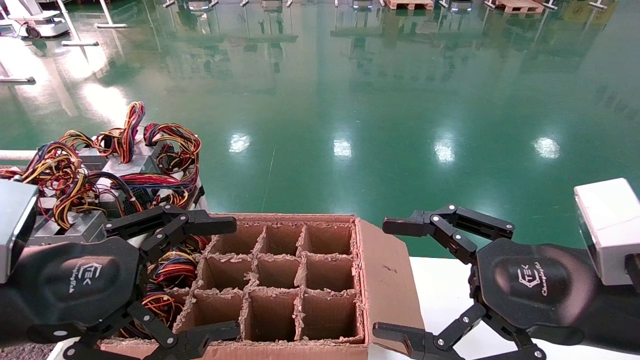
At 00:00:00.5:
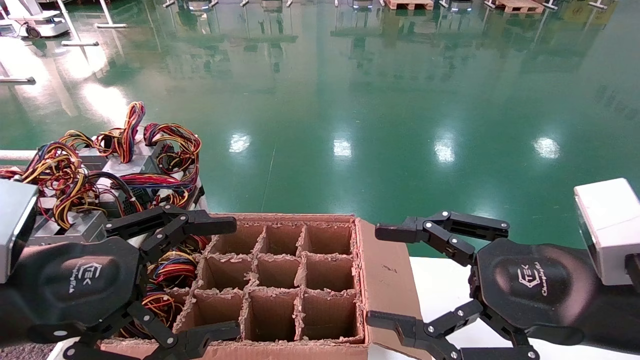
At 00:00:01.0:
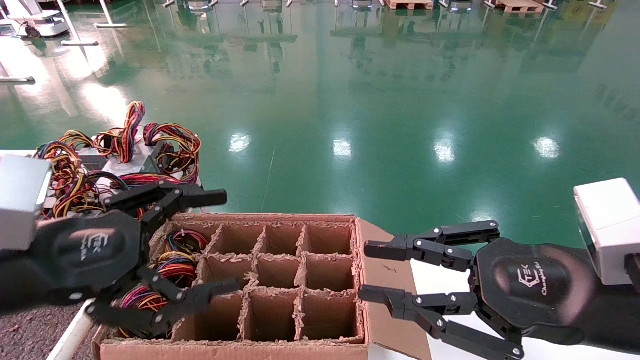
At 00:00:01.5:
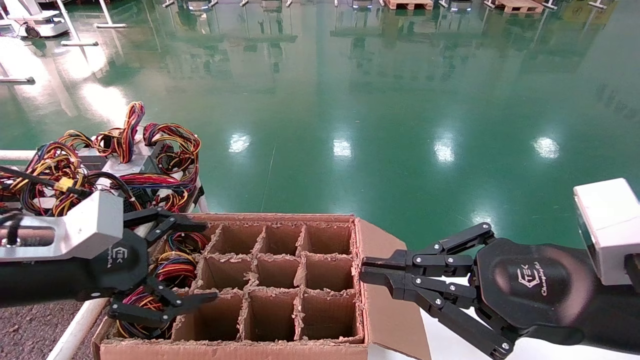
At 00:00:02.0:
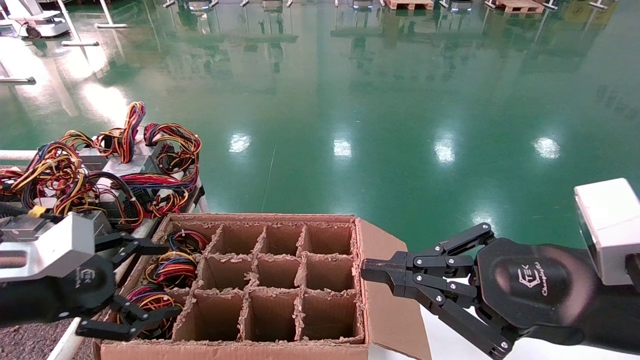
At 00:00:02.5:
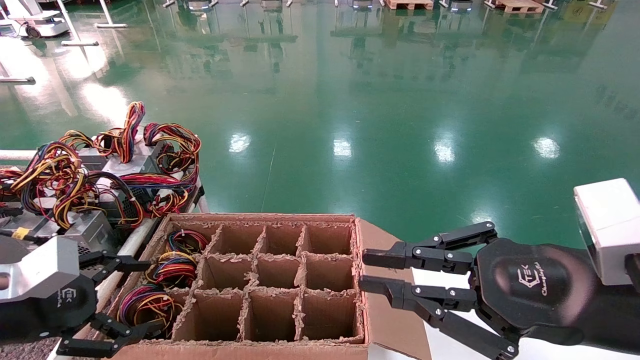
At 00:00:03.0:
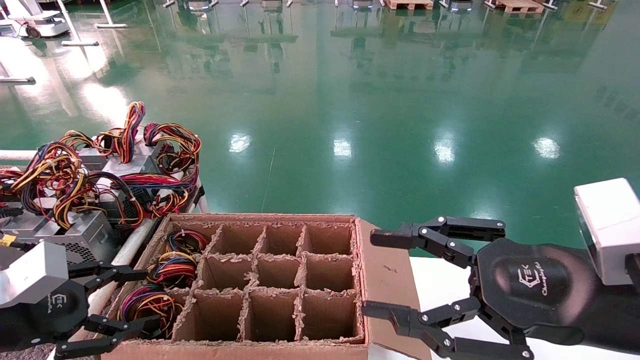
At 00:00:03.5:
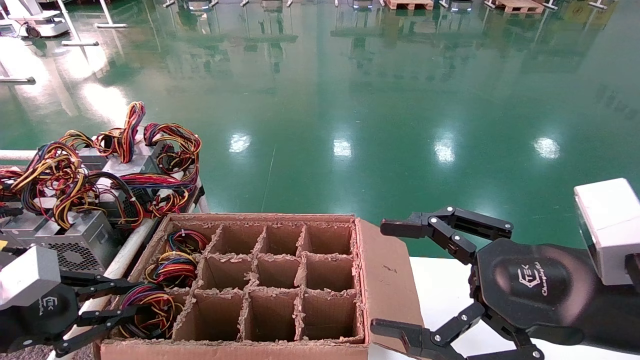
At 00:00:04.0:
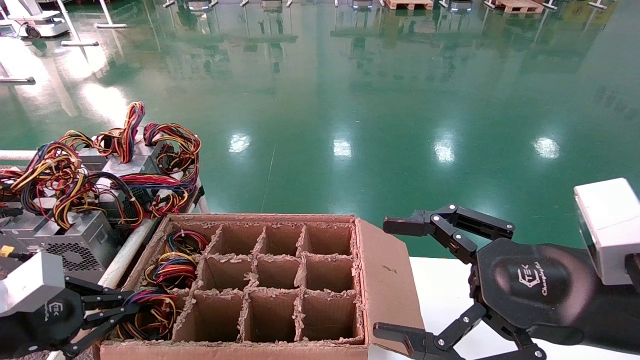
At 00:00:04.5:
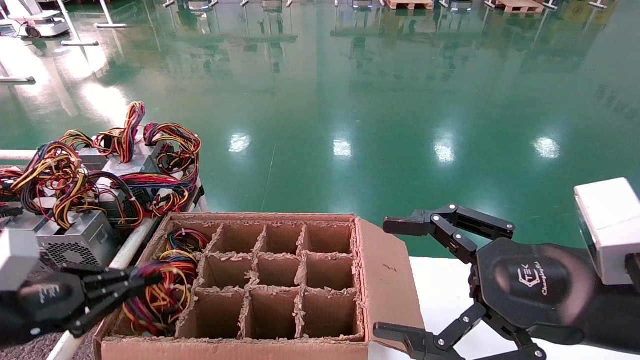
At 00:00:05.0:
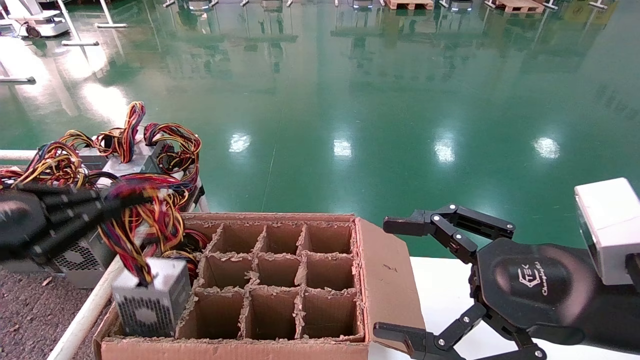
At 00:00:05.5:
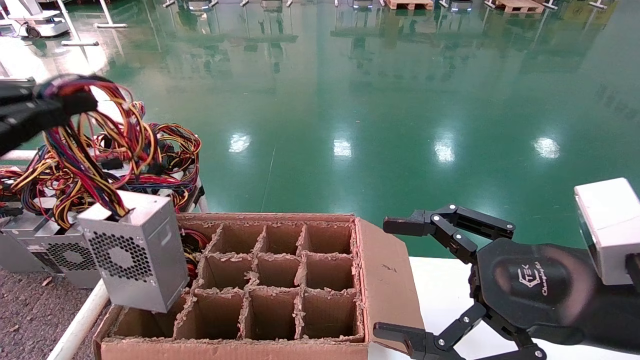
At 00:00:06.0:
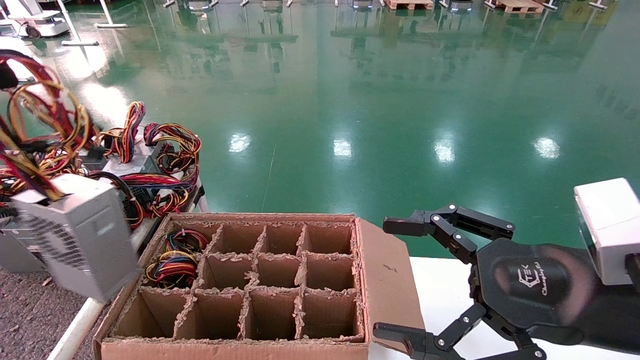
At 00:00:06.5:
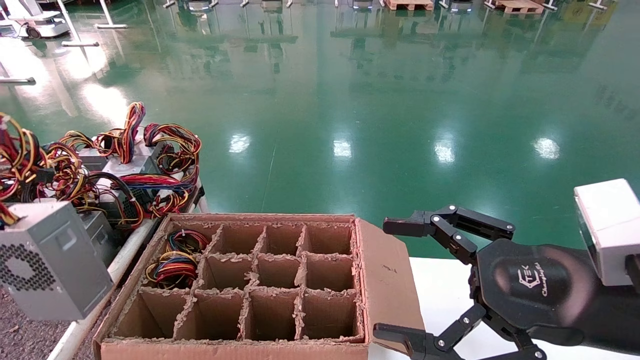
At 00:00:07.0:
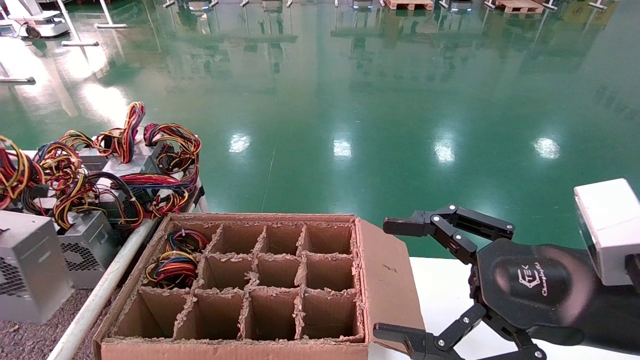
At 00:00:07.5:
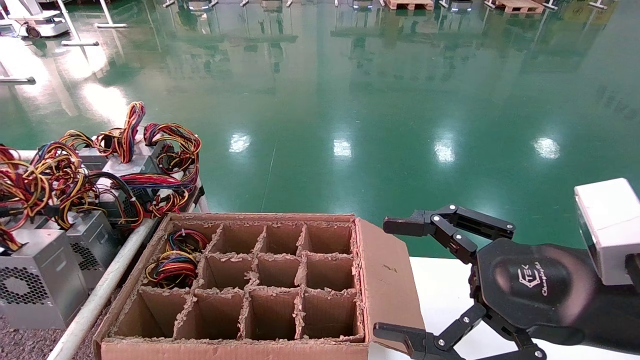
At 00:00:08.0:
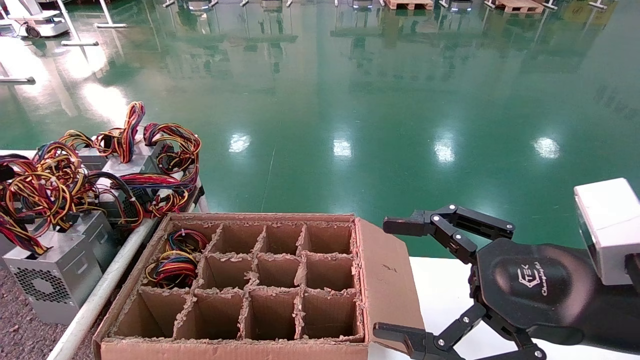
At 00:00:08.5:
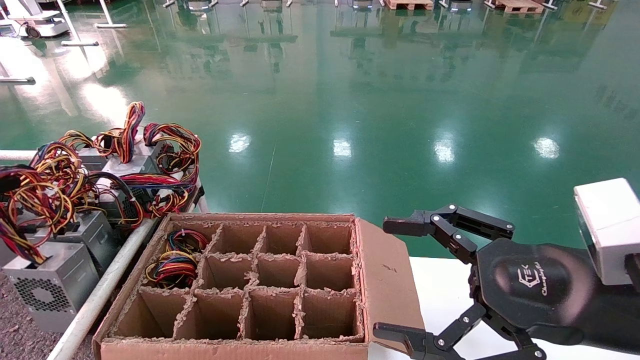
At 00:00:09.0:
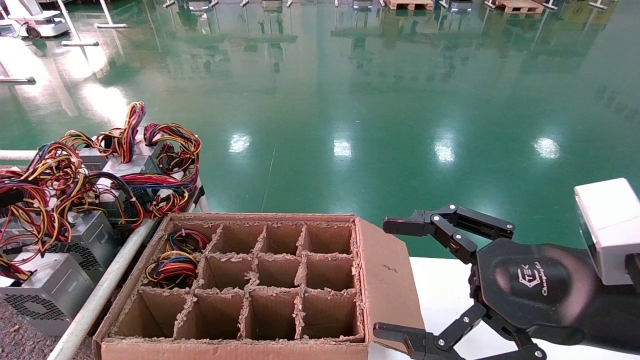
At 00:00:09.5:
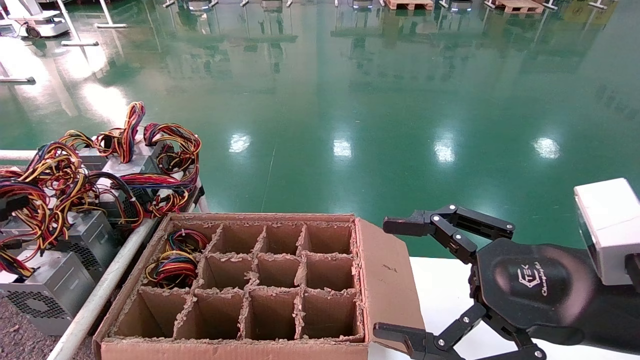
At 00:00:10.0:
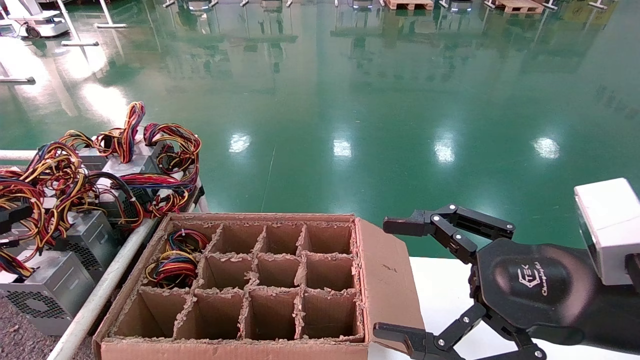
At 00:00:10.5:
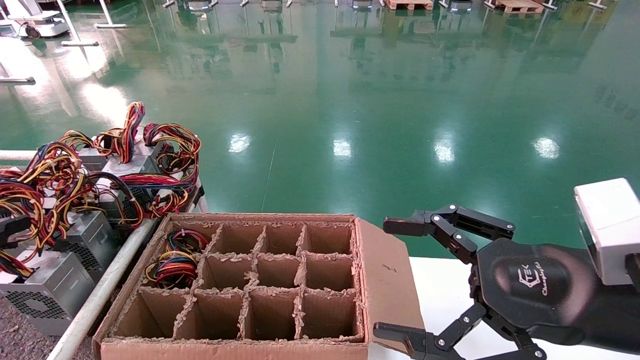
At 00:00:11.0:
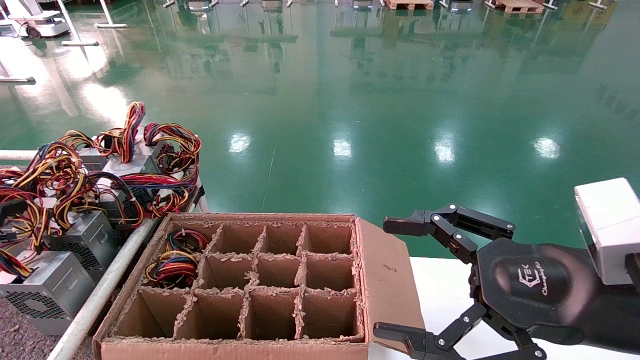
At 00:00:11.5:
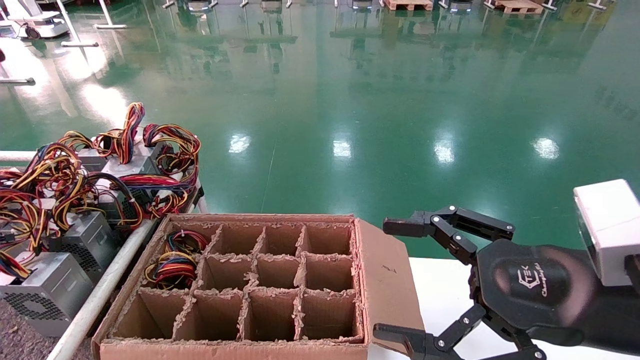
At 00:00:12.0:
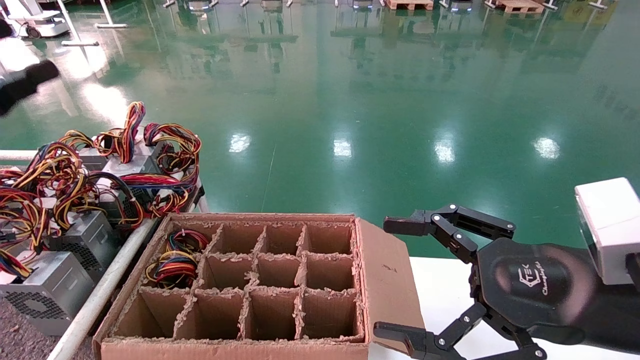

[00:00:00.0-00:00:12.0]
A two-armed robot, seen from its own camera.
Step, 00:00:01.5 to 00:00:04.0: Grab and lift the power supply from the large box.
Step, 00:00:04.5 to 00:00:09.5: Place the power supply on the operating table.
00:00:00.0 to 00:00:02.0: The left gripper travels to the left and forward by about 10 cm, while the right gripper closes up.
00:00:02.0 to 00:00:04.0: The right gripper opens its fingers. Meanwhile the left gripper moves downward, approximately 5 cm, and closes up.
00:00:04.0 to 00:00:06.0: The left gripper shifts approximately 25 cm upward and backward.
00:00:06.0 to 00:00:08.0: The left gripper moves downward, to the left and forward, roughly 15 cm.
00:00:08.0 to 00:00:10.0: The left gripper opens its fingers.
00:00:10.0 to 00:00:12.0: The left gripper goes approximately 15 cm upward and to the right, and opens up.

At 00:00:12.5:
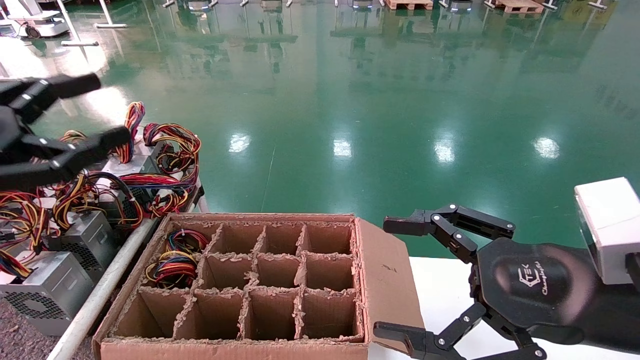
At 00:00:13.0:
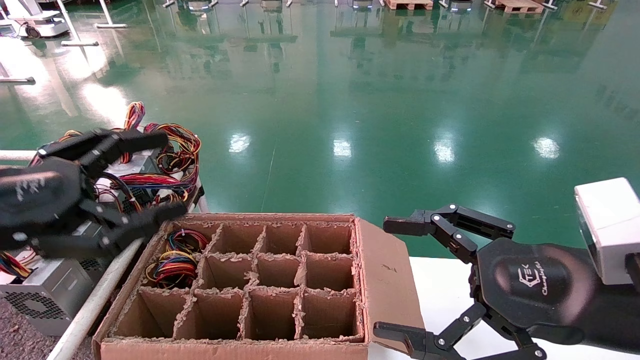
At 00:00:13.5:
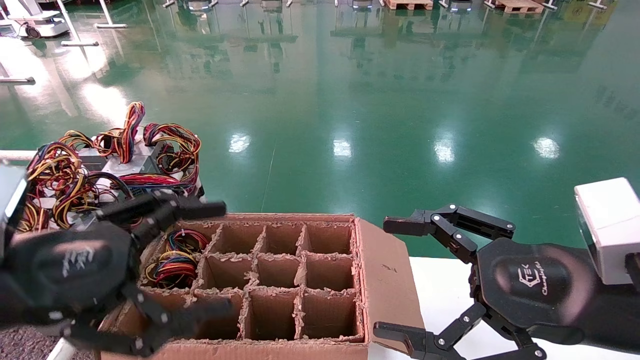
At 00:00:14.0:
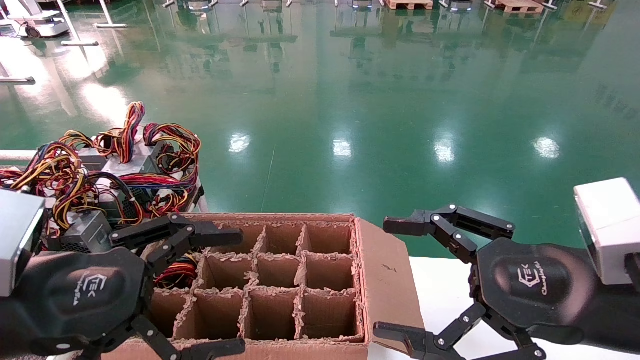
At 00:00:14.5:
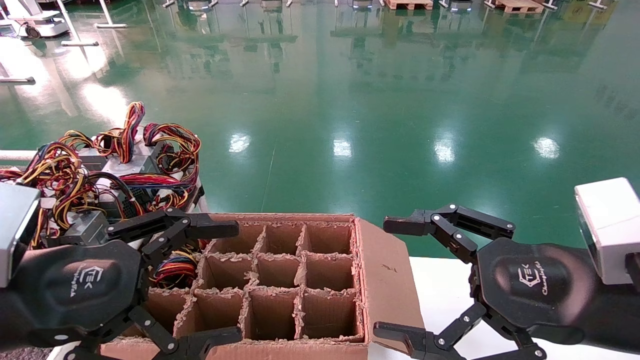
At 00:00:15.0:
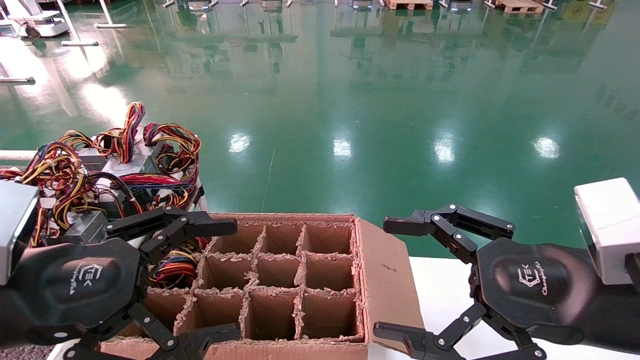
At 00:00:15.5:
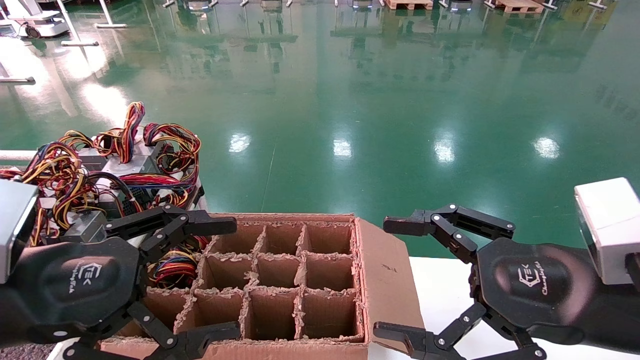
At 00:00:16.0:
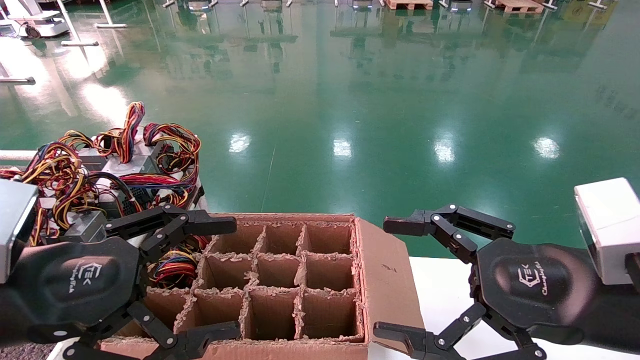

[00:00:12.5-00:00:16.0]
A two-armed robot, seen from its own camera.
00:00:12.5 to 00:00:14.5: The left gripper heads to the right and downward, covering about 15 cm.
00:00:14.5 to 00:00:16.0: The two grippers keep their place.
